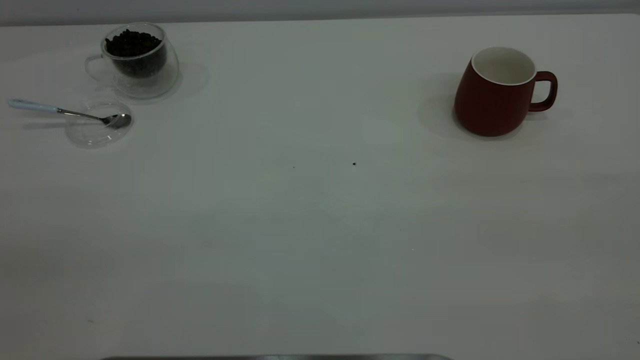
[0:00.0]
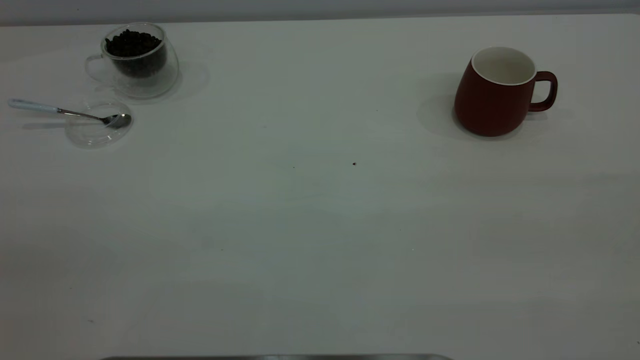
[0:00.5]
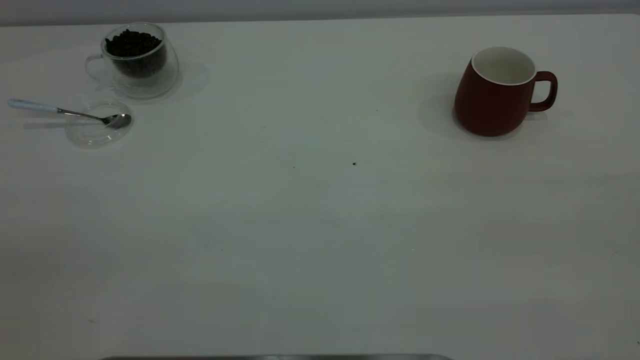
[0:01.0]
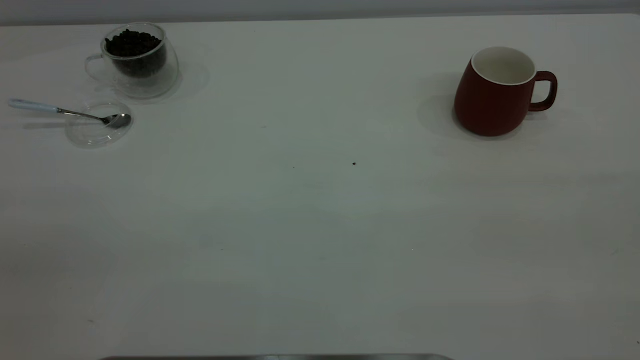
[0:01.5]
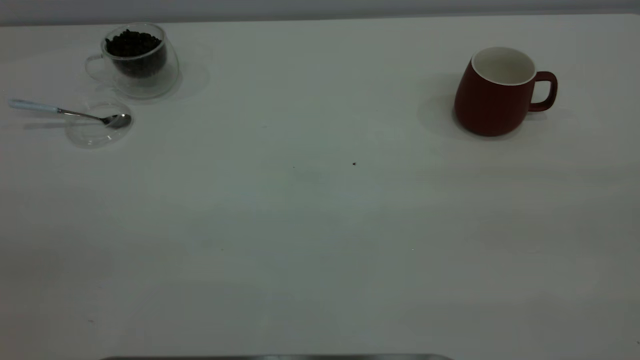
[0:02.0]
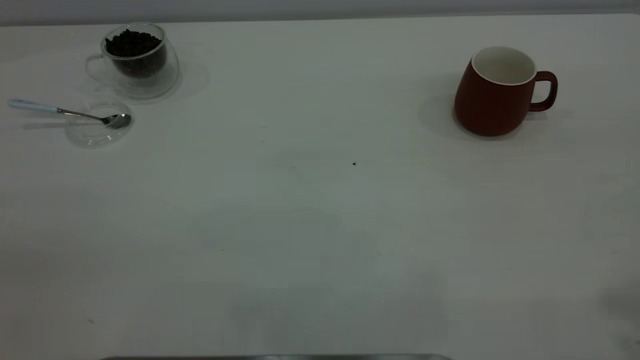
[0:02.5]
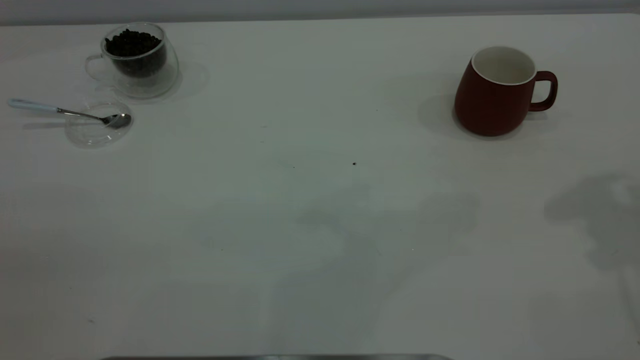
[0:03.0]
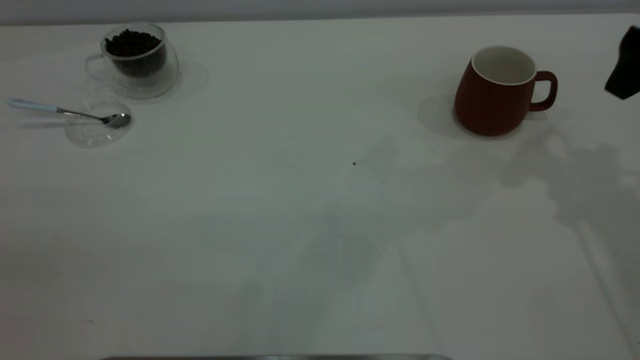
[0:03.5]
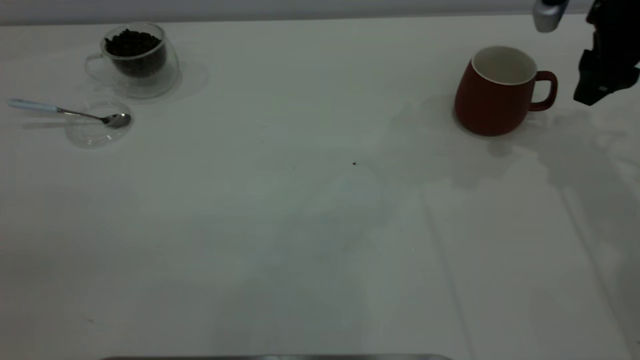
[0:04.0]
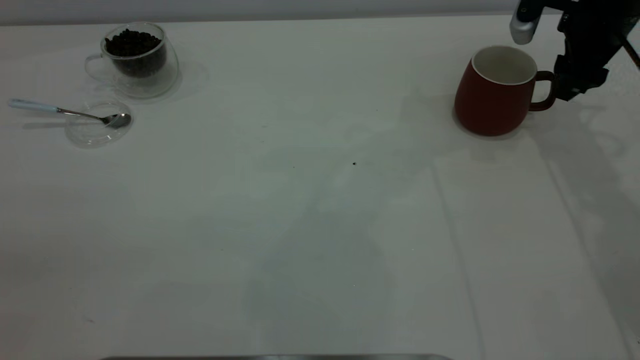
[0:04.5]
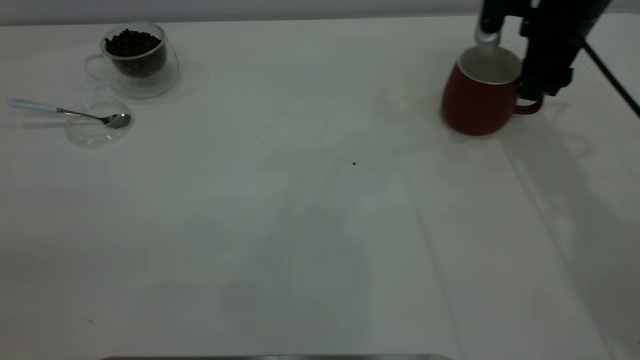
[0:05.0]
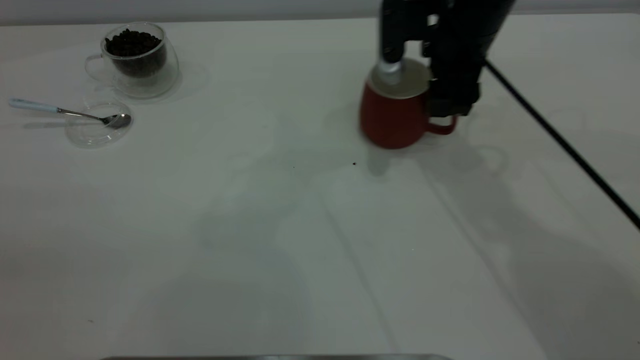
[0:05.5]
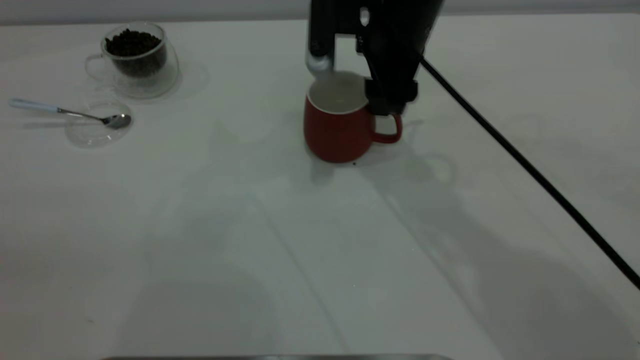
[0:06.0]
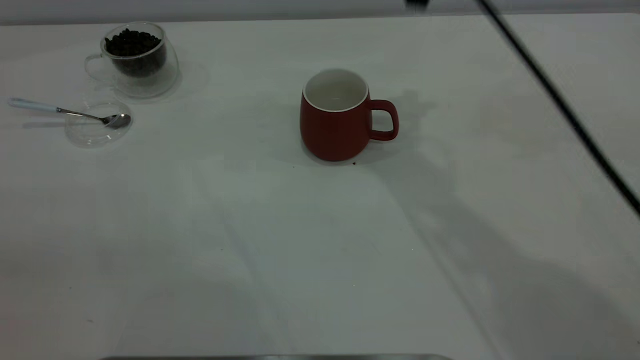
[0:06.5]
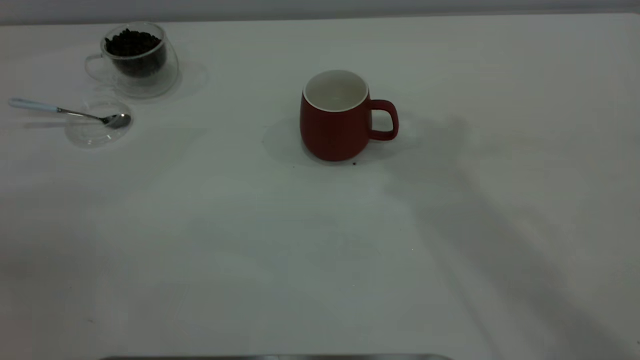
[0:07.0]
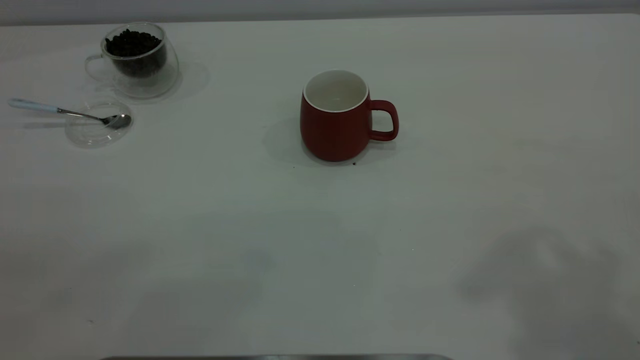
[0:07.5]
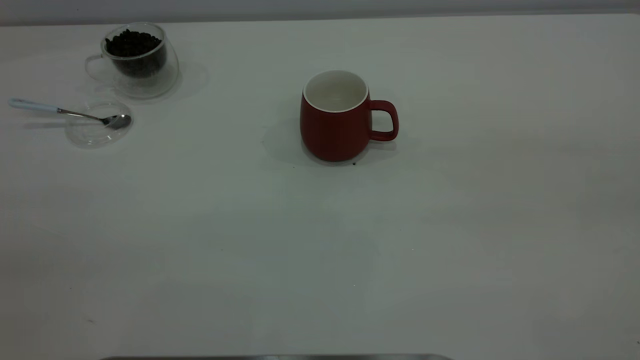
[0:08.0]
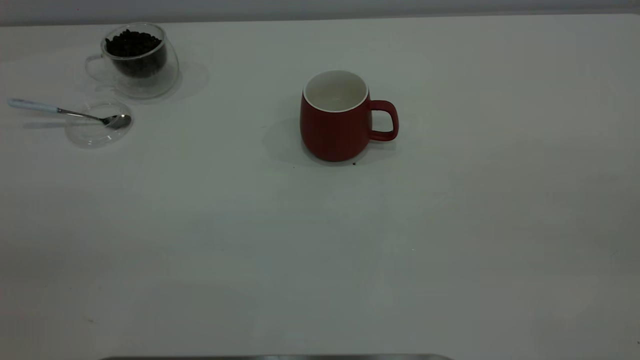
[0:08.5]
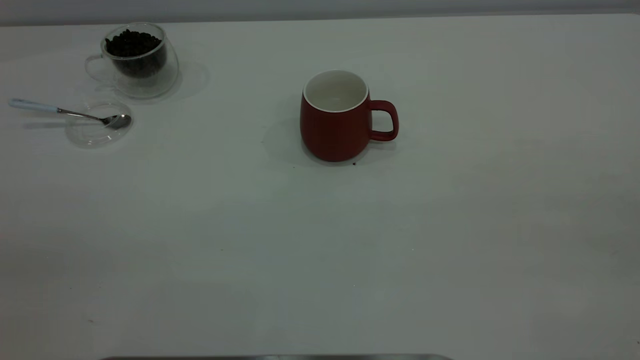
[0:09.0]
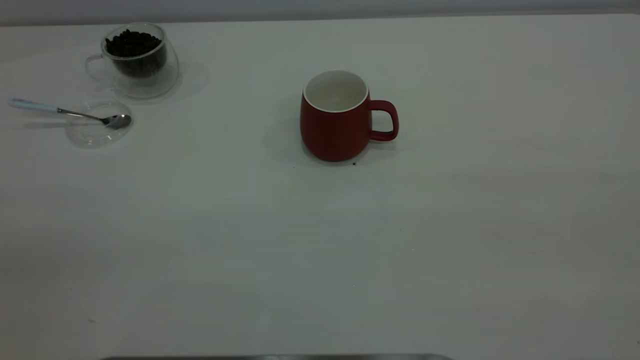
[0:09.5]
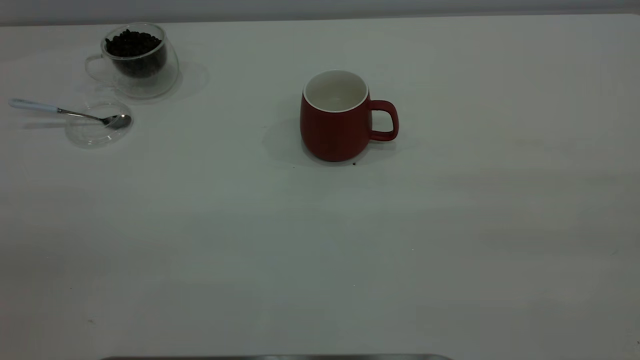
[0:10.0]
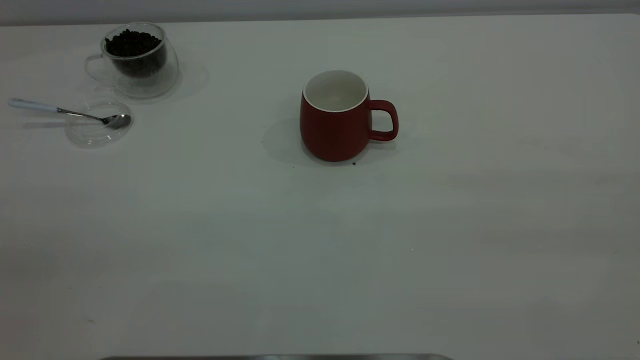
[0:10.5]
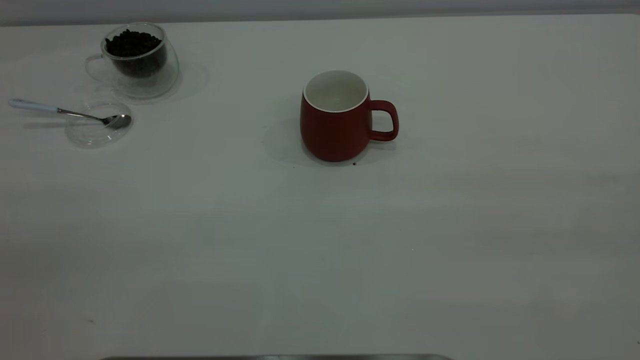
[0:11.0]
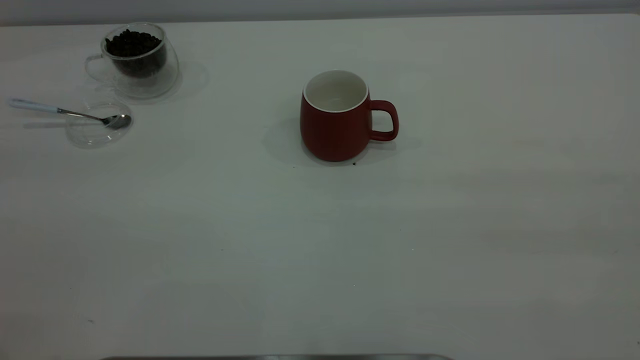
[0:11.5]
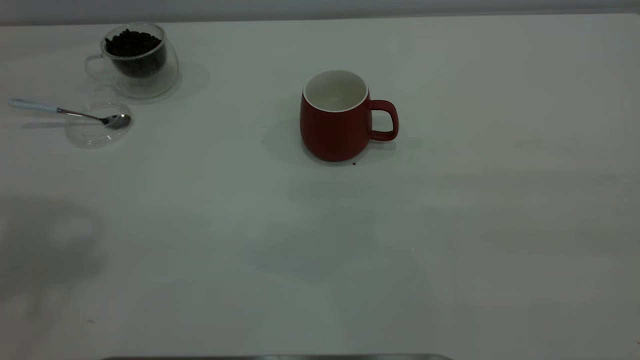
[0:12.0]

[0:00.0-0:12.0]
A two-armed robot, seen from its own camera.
Task of the whole recording: the right gripper place the red cup in the center of the table, the left gripper take the blue spoon from the cup lid and scoop out the coffee beans from the coffee cup and put them into the red cup, the left gripper put the spoon back into the cup lid.
Step, 0:00.0 to 0:06.0: Move the cup to the center of view.
0:02.0 to 0:04.0: The right gripper is displaced forward and downward by approximately 40 cm.
0:04.0 to 0:06.0: The right gripper shifts roughly 25 cm to the left.
0:06.0 to 0:08.0: The right gripper moves backward, upward and to the right, approximately 50 cm.

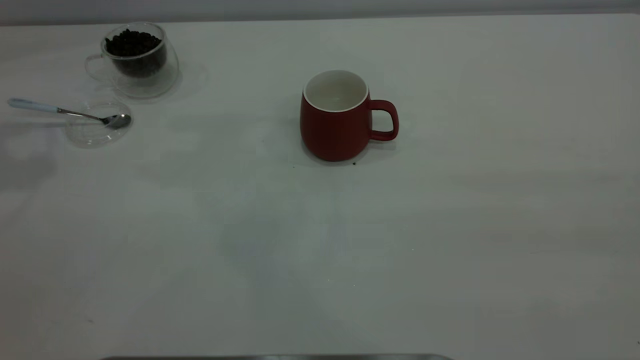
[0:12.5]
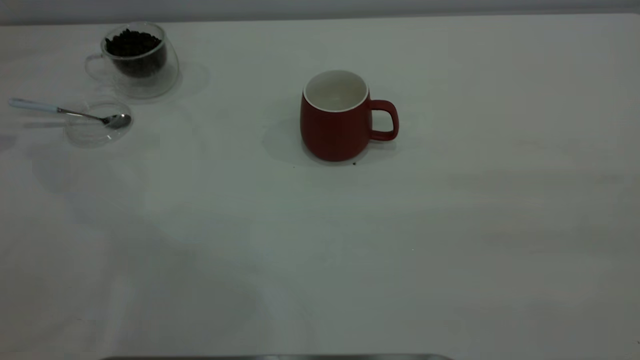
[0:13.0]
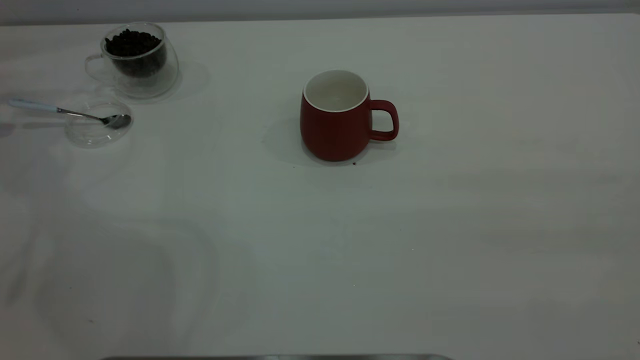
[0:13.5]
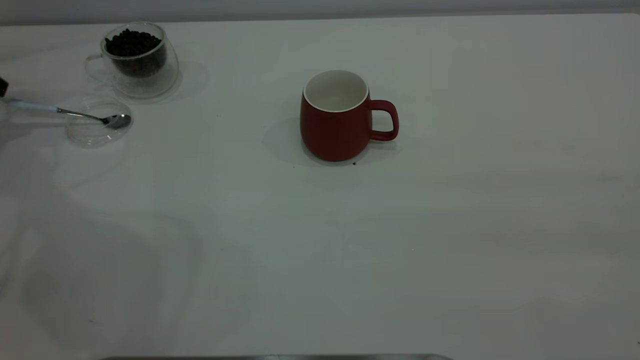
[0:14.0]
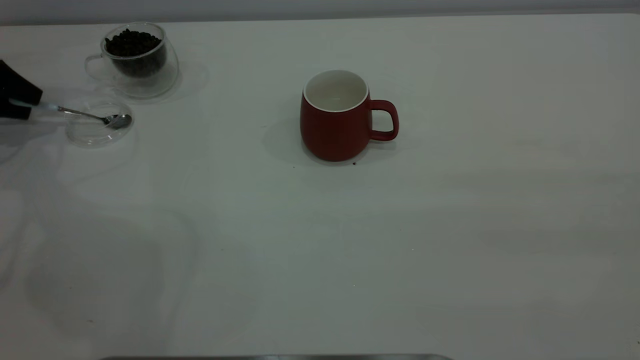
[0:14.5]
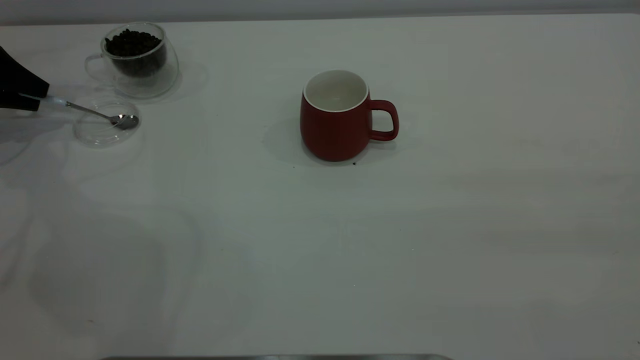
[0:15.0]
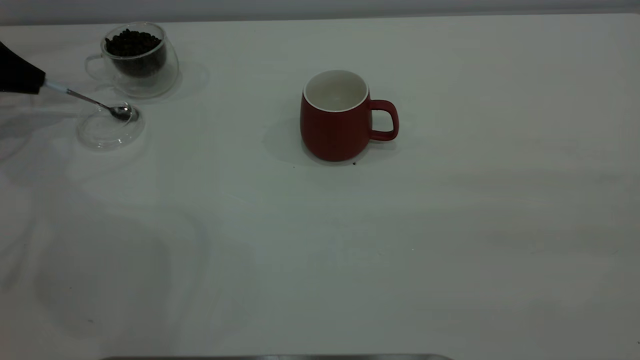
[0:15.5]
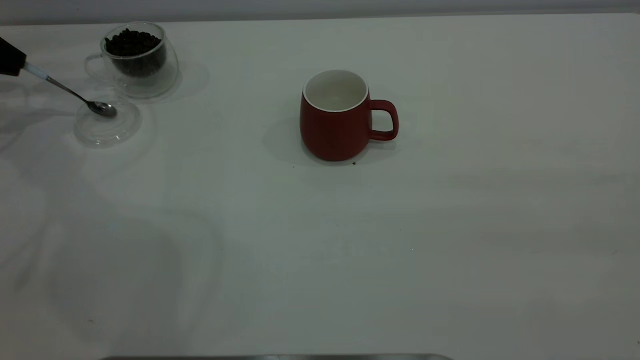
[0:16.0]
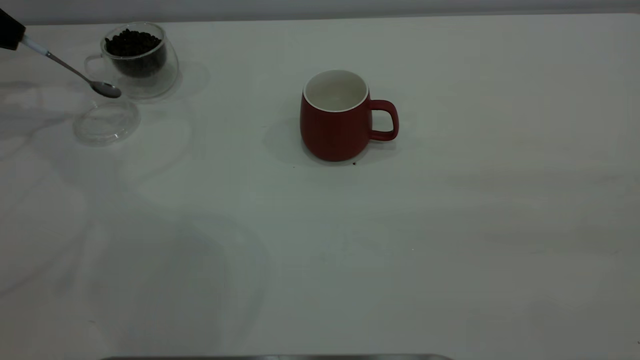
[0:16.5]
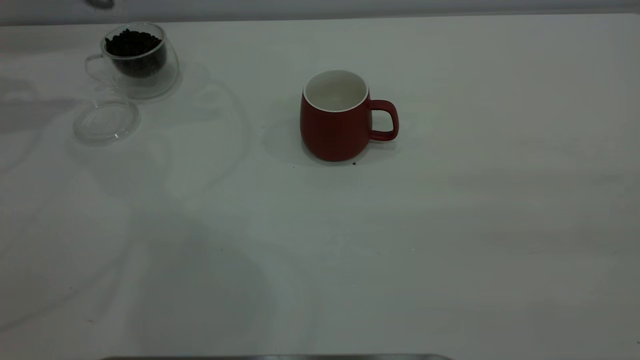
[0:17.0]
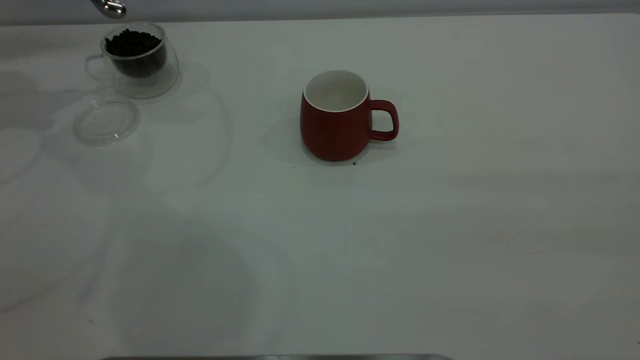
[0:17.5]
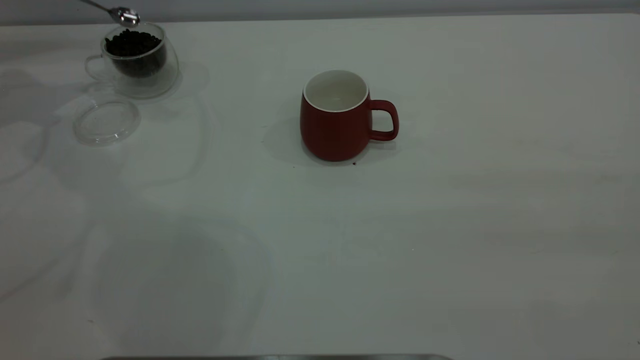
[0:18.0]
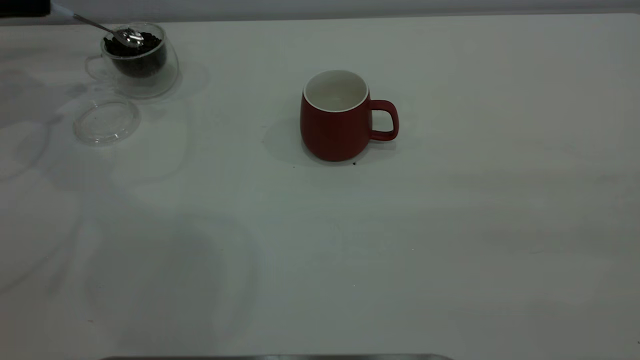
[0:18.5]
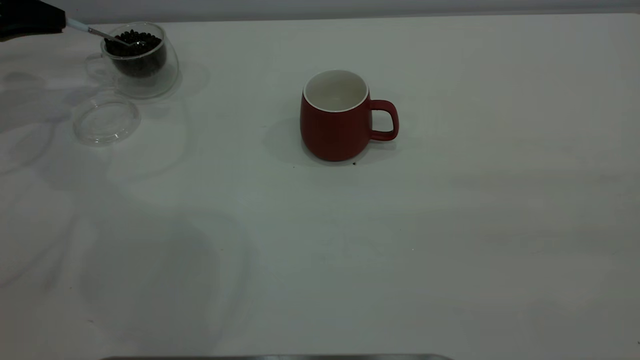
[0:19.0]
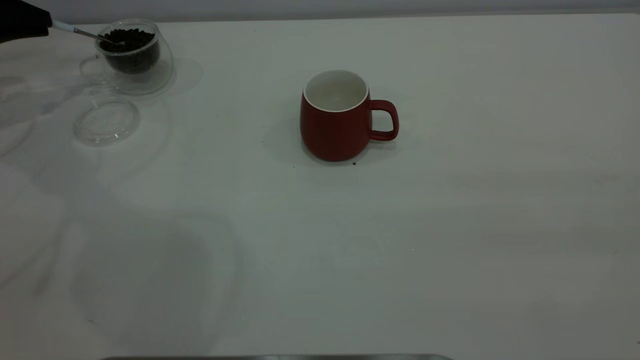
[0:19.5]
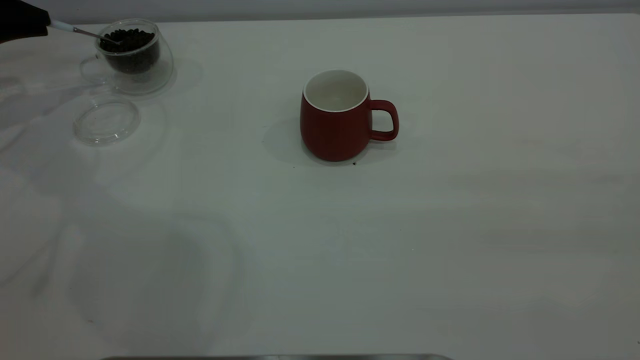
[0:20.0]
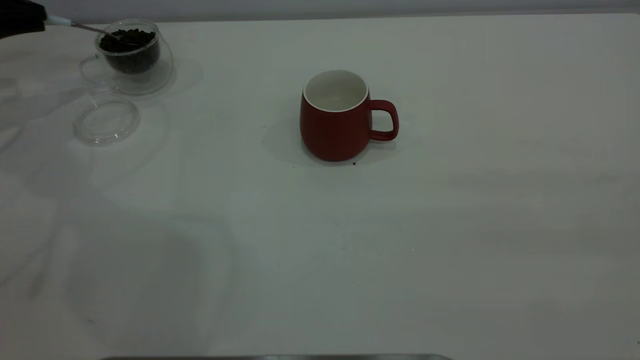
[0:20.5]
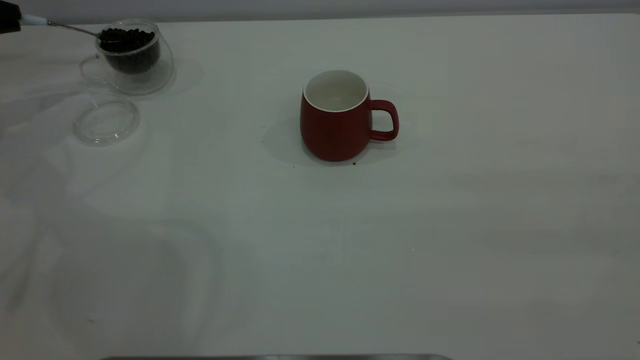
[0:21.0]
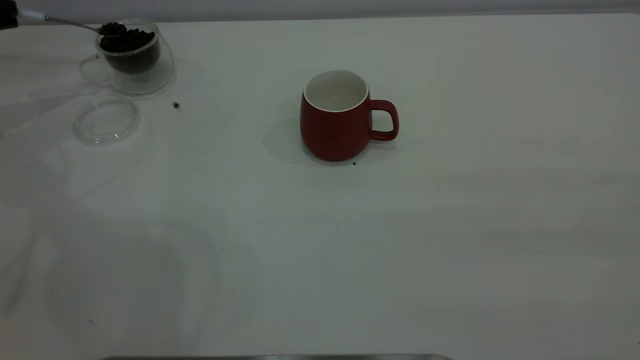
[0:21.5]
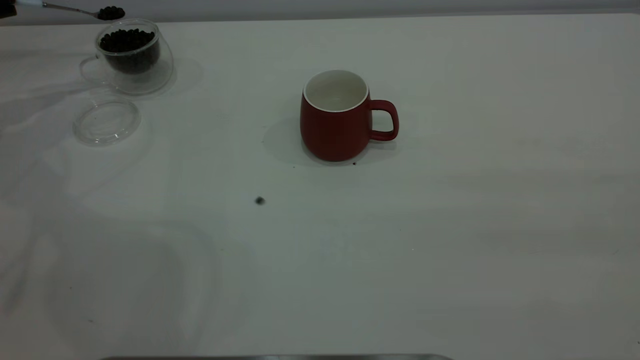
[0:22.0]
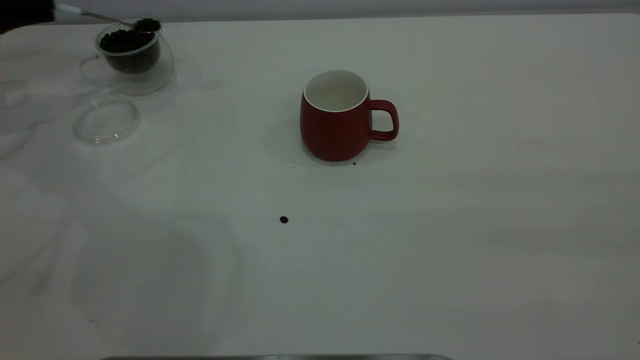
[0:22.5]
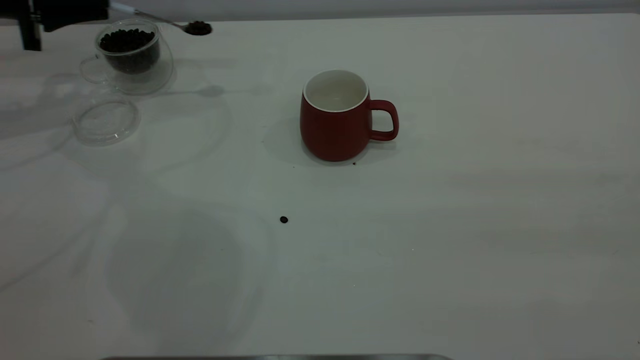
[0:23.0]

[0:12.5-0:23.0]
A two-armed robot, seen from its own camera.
Task of the whole recording: the right gripper place the red cup in the center of the table, the left gripper take the blue spoon from the cup lid and scoop out the coffee beans from the coffee cup and put them into the red cup, the left gripper put the spoon back into the cup lid.
0:12.5 to 0:14.5: The left gripper goes about 30 cm downward.
0:14.5 to 0:16.5: The left gripper goes roughly 10 cm upward, and closes up.
0:21.0 to 0:23.0: The left gripper is displaced to the right by some 10 cm.
